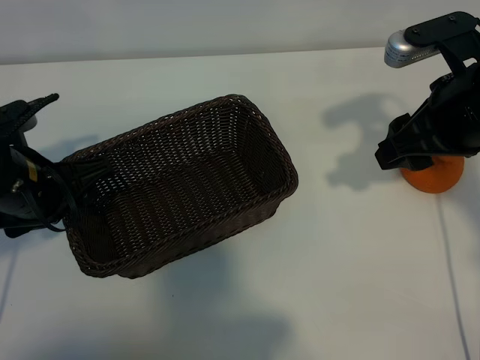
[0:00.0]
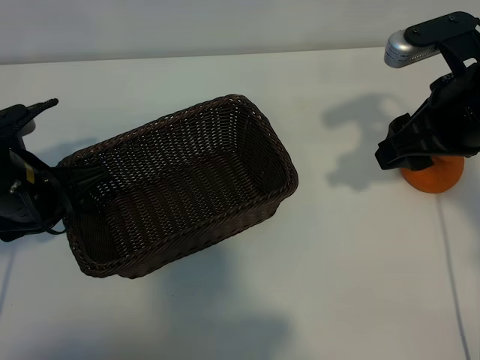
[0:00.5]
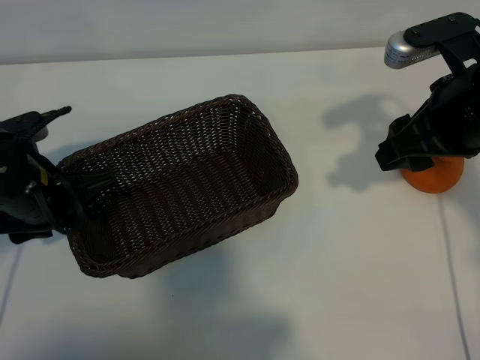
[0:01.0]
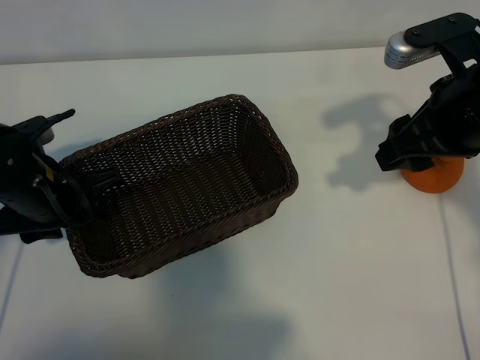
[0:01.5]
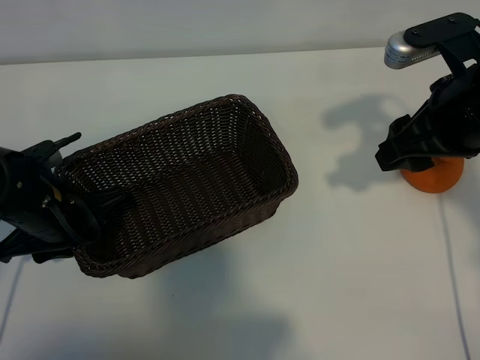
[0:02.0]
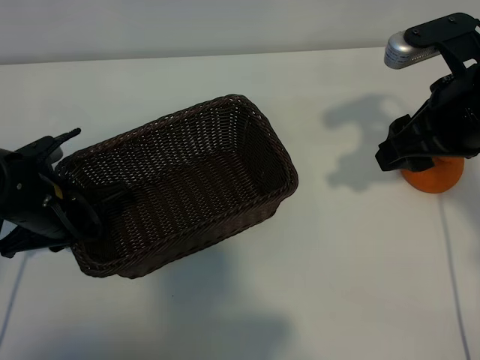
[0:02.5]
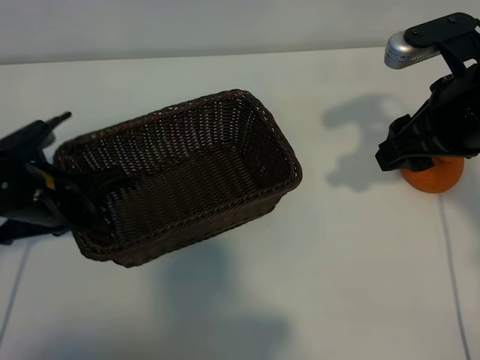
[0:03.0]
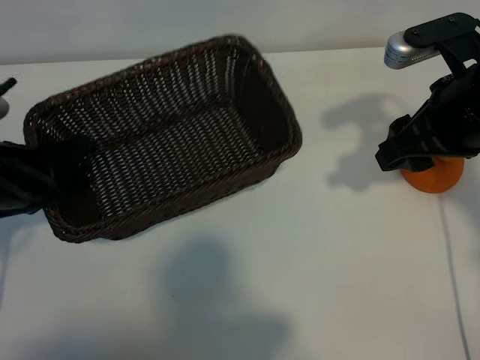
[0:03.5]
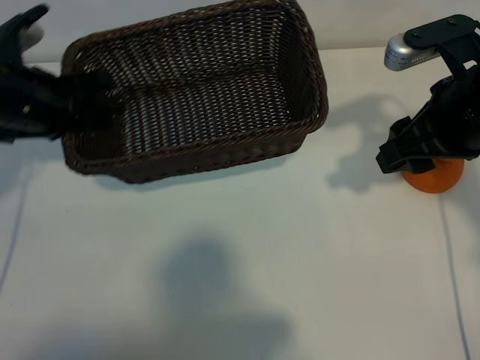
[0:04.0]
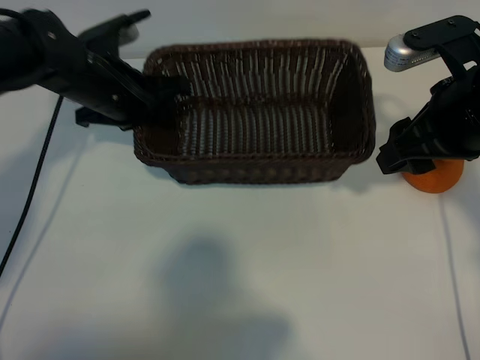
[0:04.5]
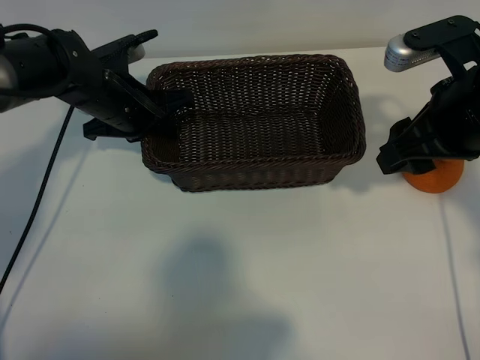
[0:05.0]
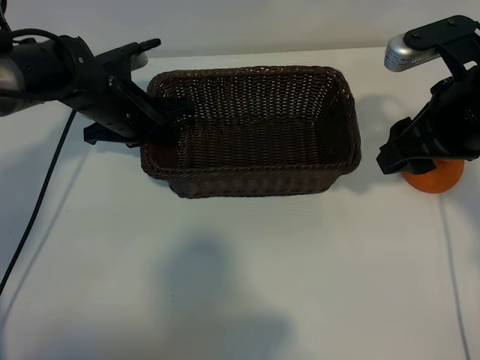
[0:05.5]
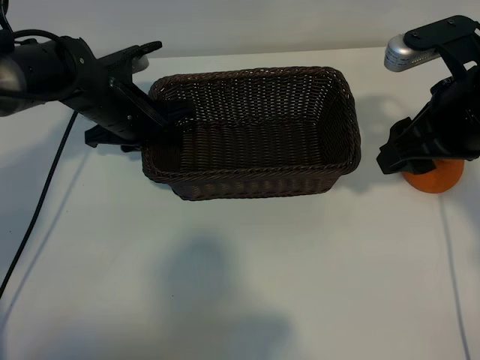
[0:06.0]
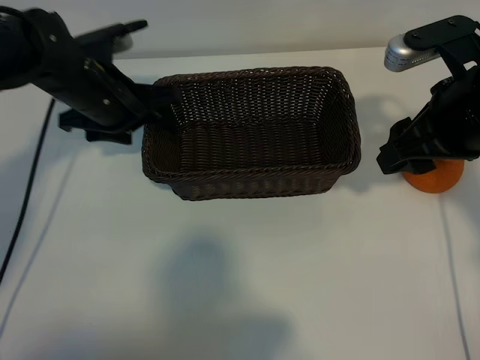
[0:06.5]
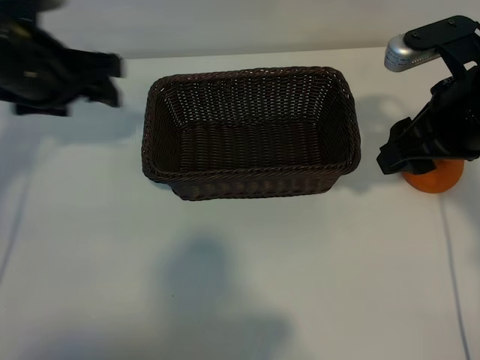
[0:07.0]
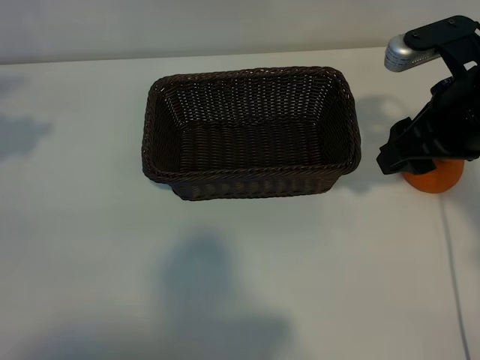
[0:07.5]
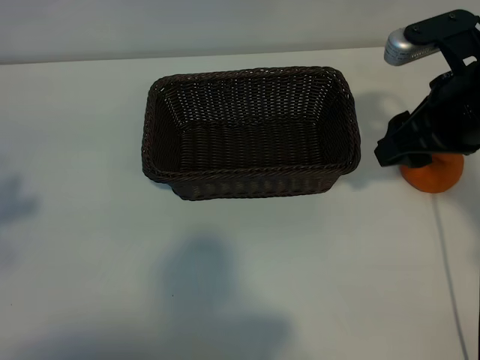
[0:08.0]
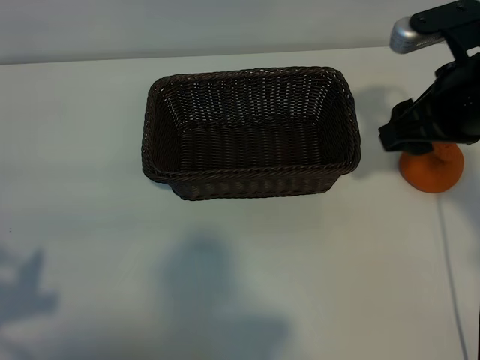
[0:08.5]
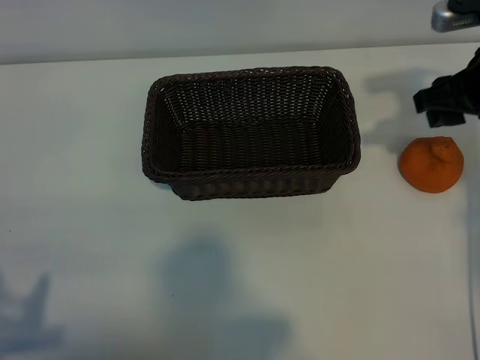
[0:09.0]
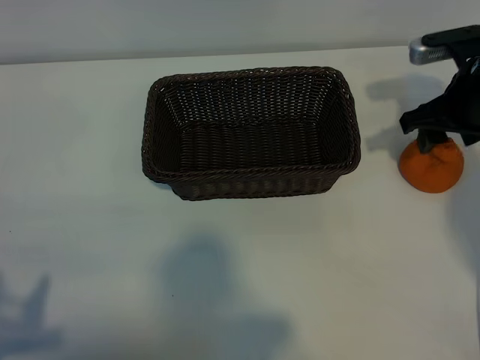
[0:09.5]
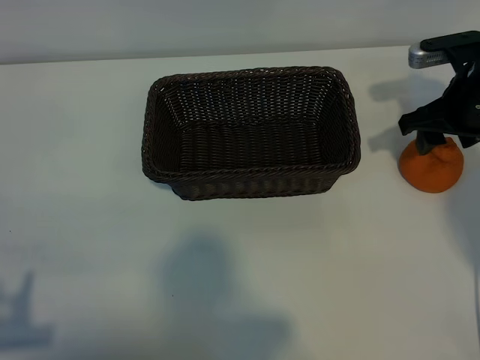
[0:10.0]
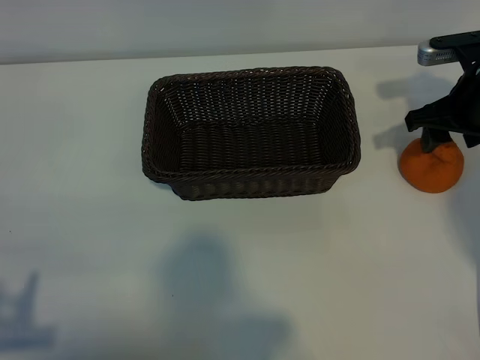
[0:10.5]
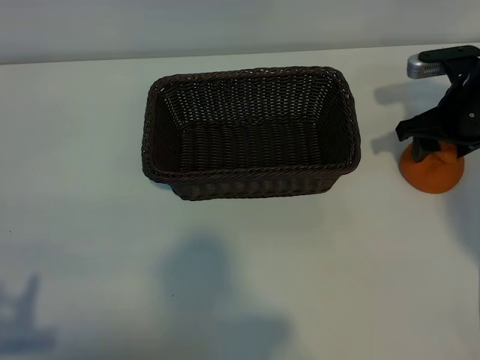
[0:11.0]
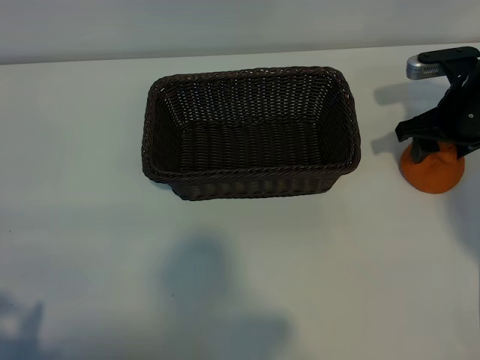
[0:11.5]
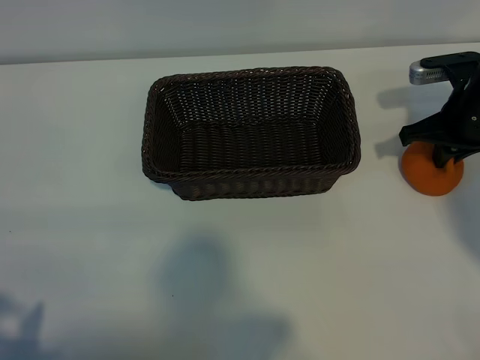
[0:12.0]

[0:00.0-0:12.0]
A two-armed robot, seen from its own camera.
Task of the whole recording: pick up the orange and put it into the basket.
Step, 0:00.0 to 0:02.5: Grasp the basket with left gripper.
Step, 0:03.0 to 0:05.5: Place the basket in the center of view with left gripper.
Step, 0:06.0 to 0:11.5: Grasp the orange with right gripper.

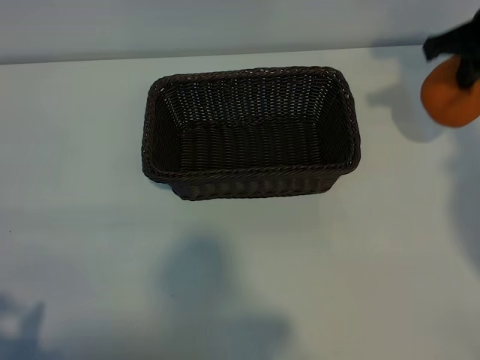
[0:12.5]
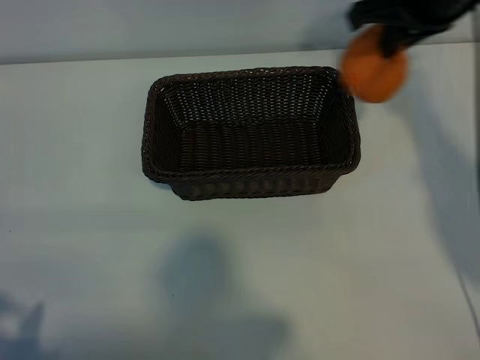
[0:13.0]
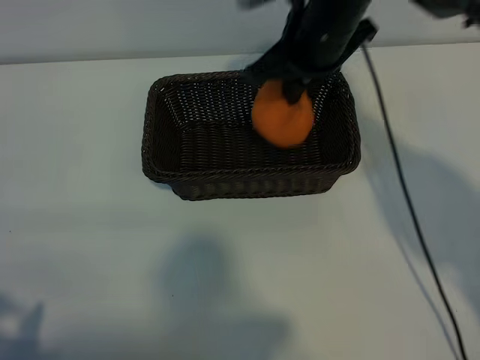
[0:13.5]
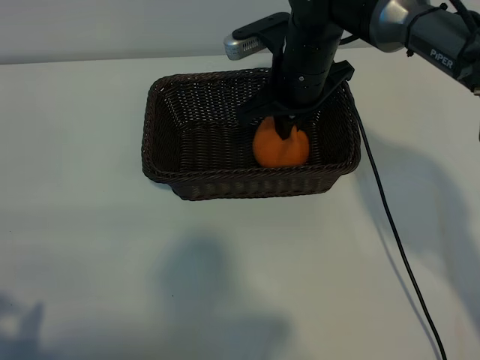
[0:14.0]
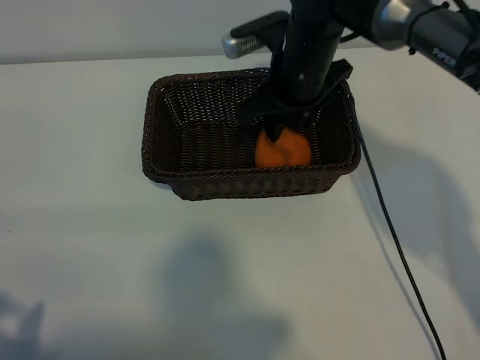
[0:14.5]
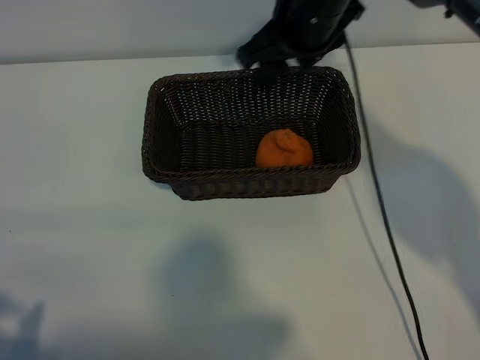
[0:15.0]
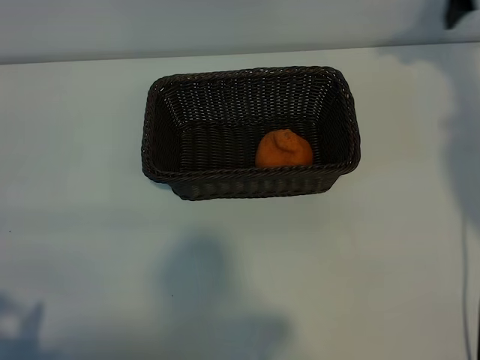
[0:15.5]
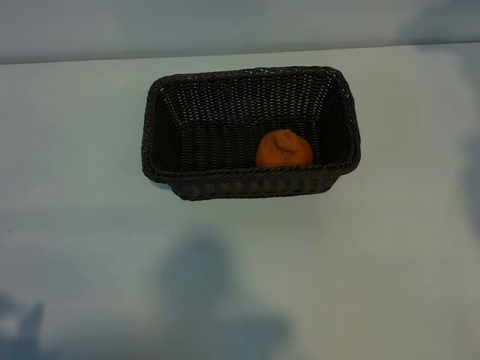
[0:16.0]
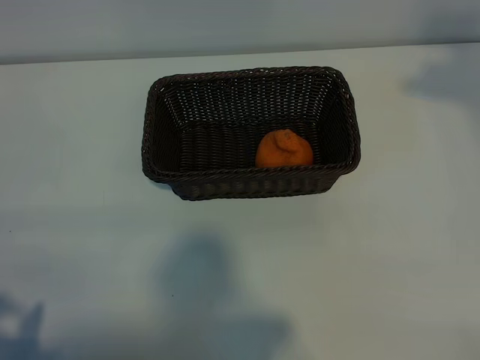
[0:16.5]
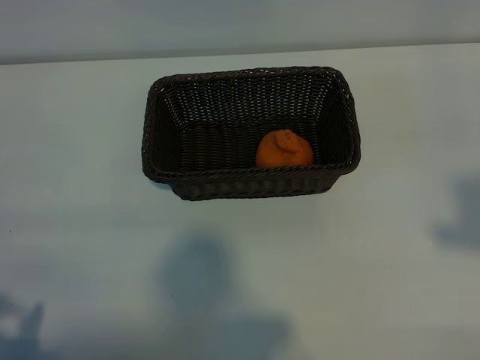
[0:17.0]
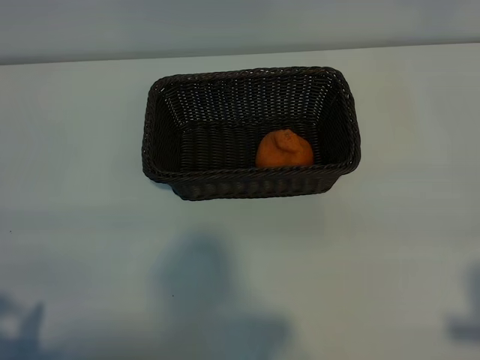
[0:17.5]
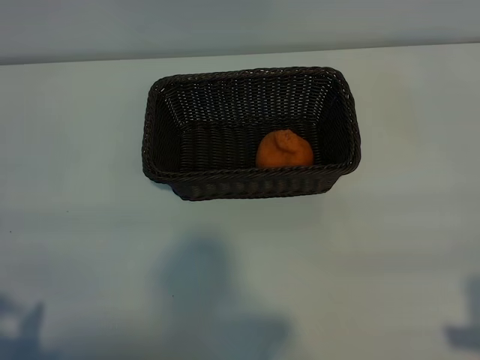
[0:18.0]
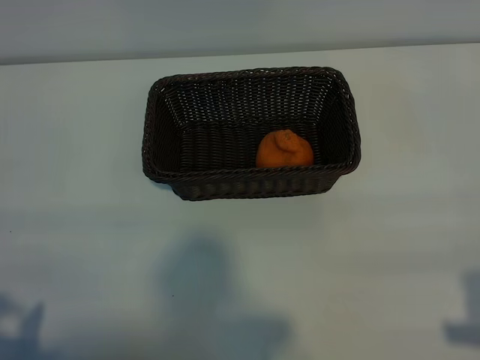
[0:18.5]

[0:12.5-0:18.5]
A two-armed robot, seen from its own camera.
Task of the whole recording: pick up the orange and put it into the basket.
Step, 0:12.5 to 0:14.5: Place the orange in the basket with right gripper.

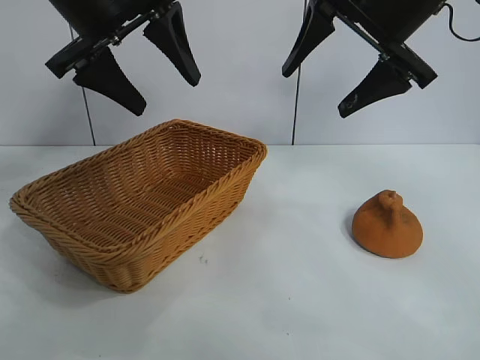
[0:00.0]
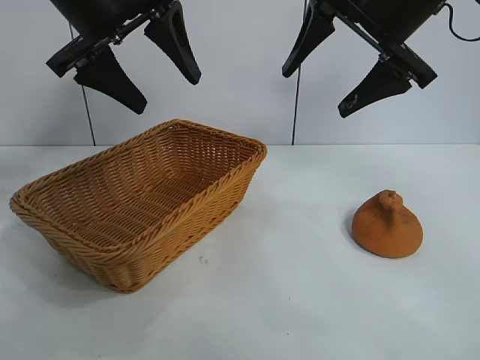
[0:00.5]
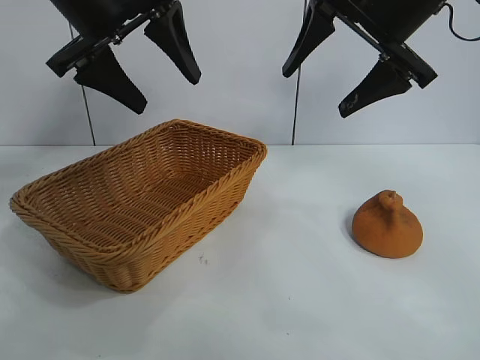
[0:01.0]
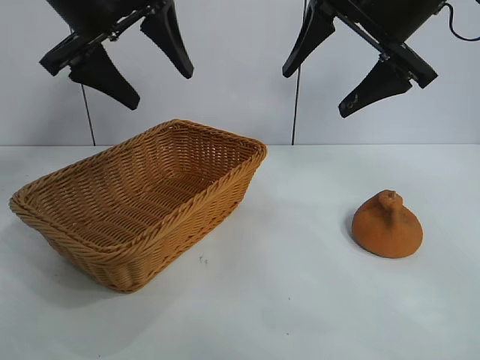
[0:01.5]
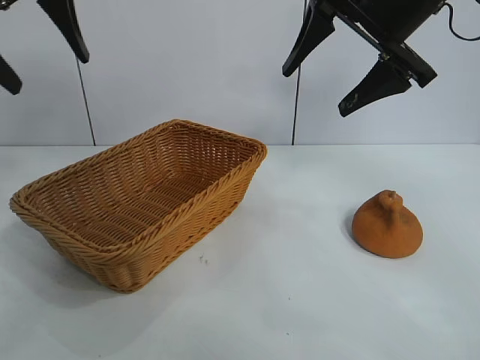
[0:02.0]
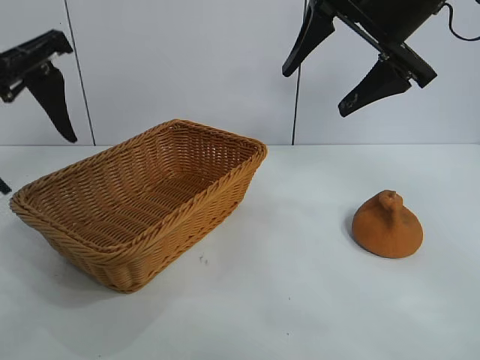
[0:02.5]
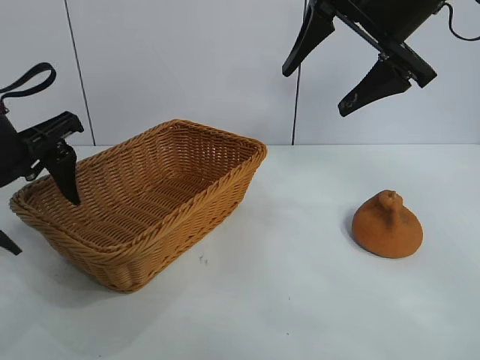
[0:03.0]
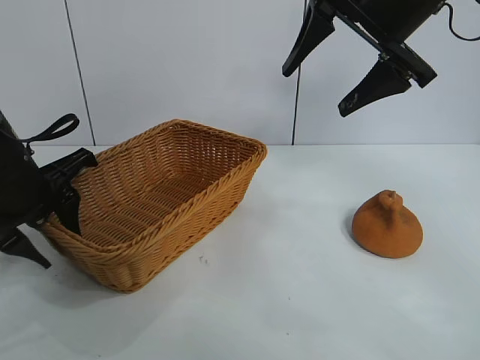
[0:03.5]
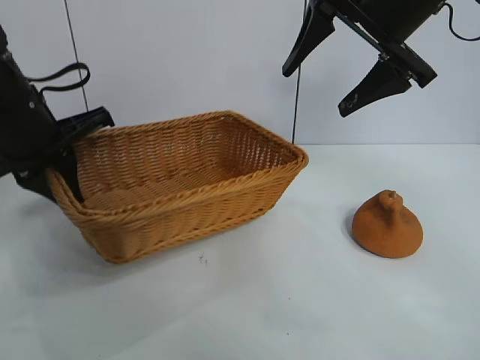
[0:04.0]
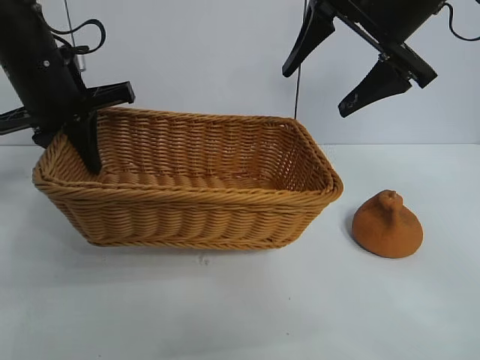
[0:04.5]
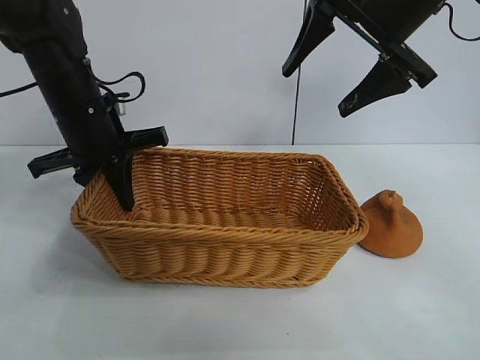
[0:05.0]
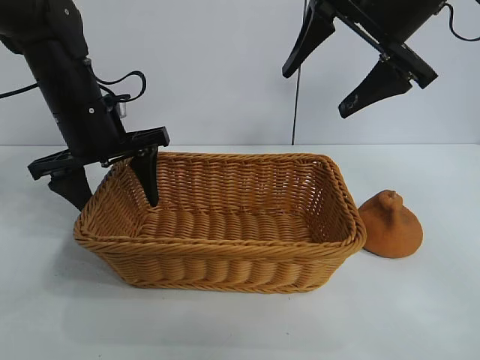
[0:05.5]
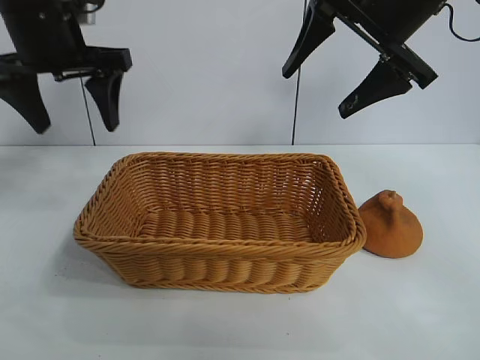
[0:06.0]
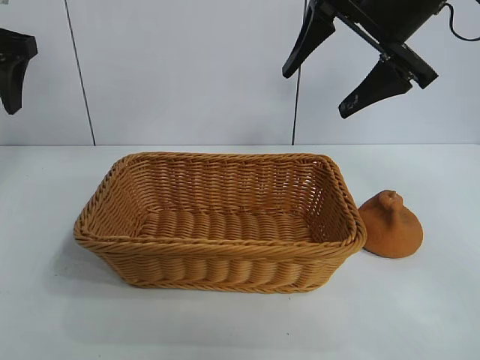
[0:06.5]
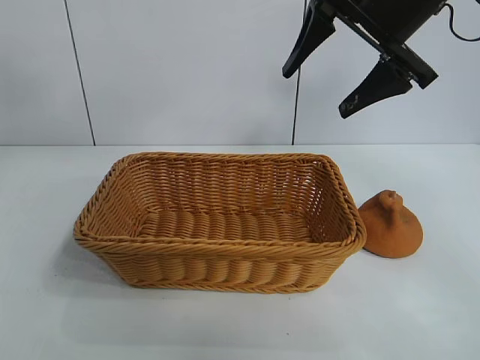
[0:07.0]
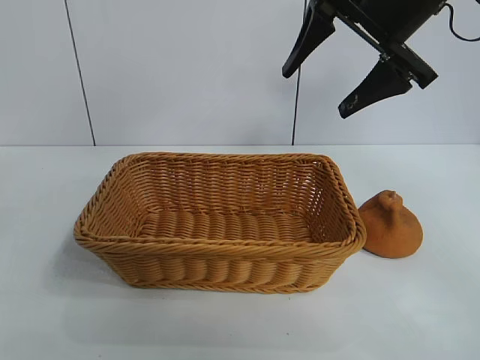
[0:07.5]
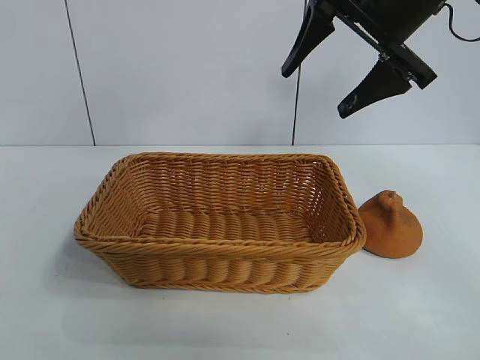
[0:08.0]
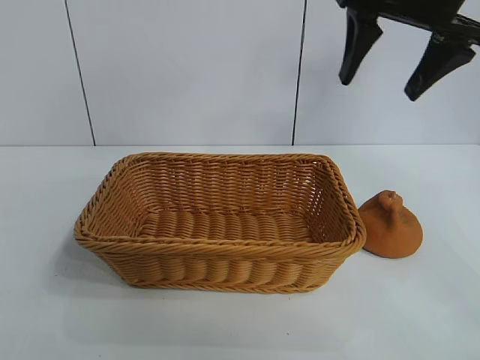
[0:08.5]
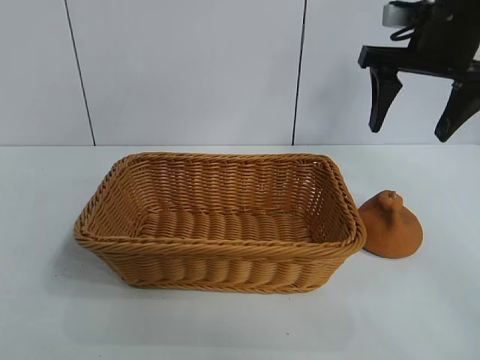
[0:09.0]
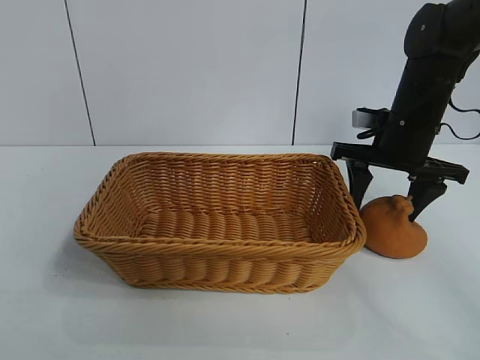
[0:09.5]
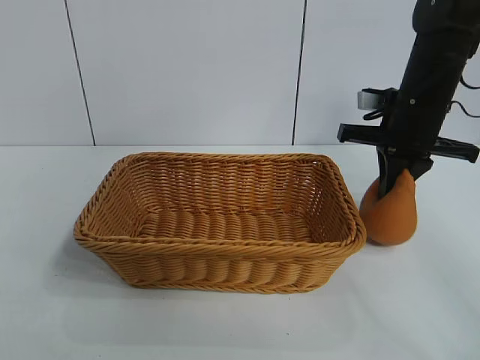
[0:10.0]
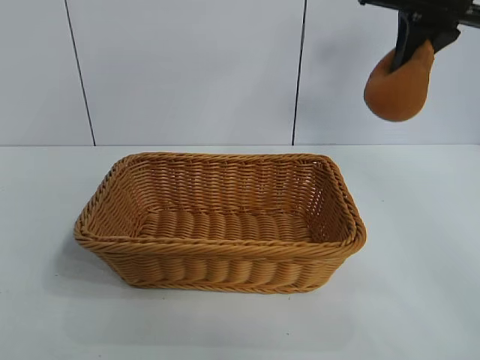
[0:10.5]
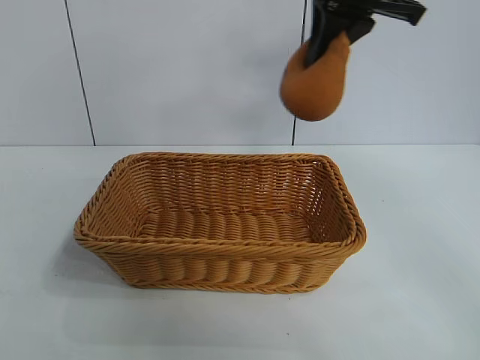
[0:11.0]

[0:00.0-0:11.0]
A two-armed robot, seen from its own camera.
Task of the whole recording: pick up the orange and put it into the basket.
Step, 0:01.0 to 0:03.5: Grasp the basket with left gripper.
Step, 0:04.0 to 0:05.5: Place the basket in the center of view with left gripper.
Step, 0:06.0 to 0:09.5: Grasp the orange with right gripper.
